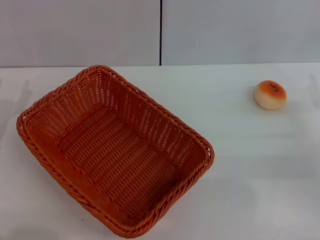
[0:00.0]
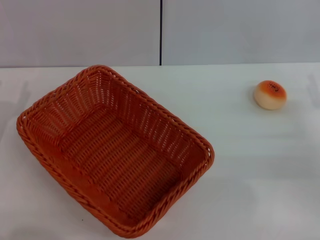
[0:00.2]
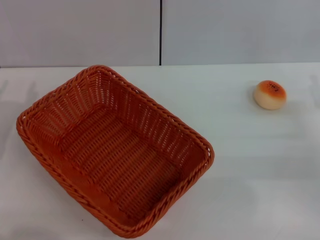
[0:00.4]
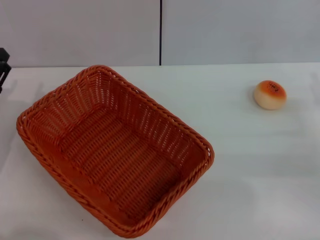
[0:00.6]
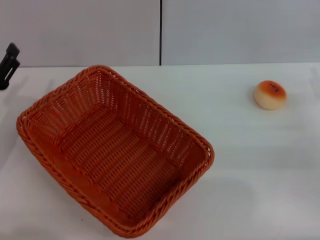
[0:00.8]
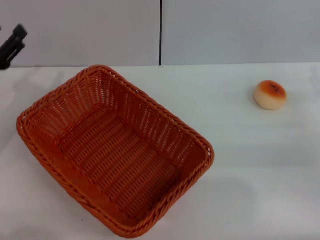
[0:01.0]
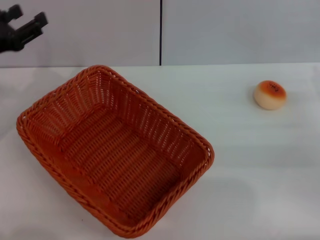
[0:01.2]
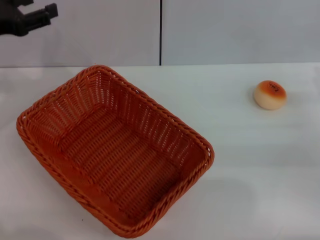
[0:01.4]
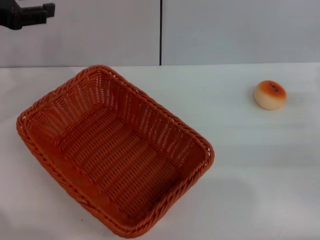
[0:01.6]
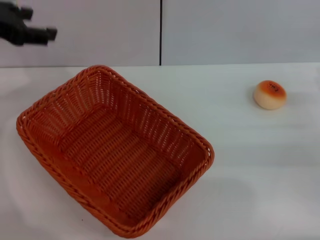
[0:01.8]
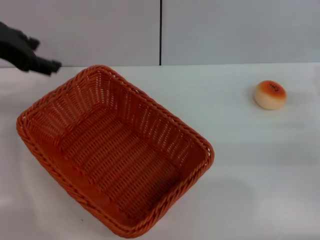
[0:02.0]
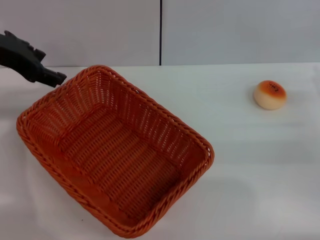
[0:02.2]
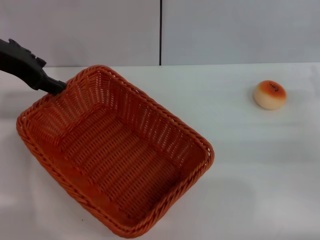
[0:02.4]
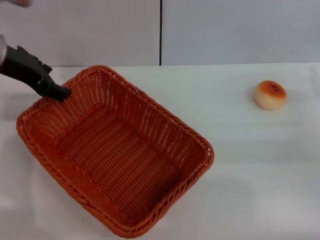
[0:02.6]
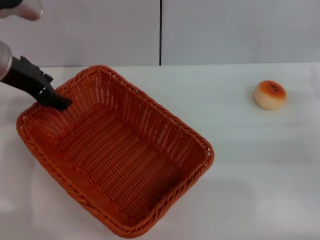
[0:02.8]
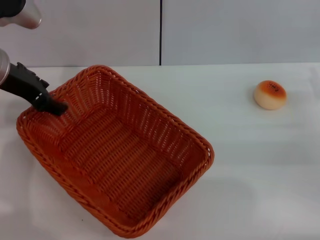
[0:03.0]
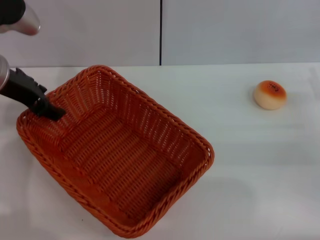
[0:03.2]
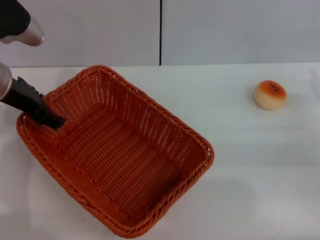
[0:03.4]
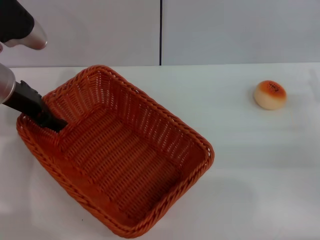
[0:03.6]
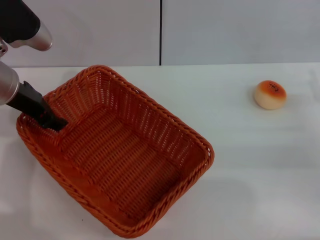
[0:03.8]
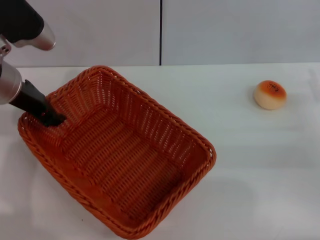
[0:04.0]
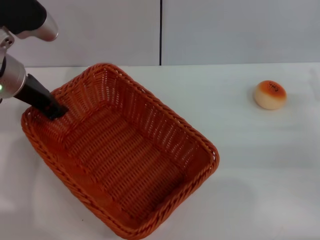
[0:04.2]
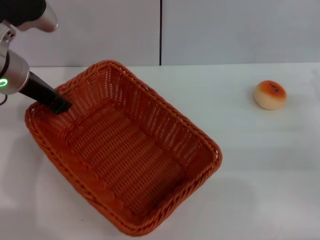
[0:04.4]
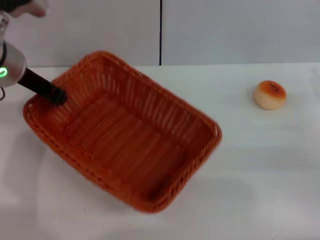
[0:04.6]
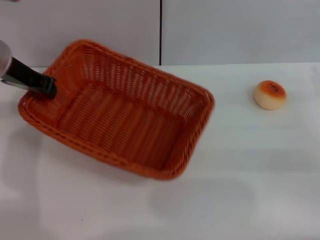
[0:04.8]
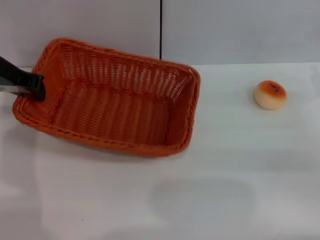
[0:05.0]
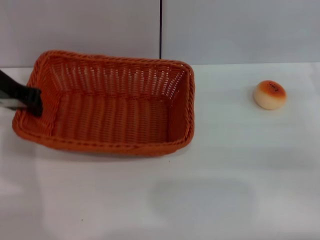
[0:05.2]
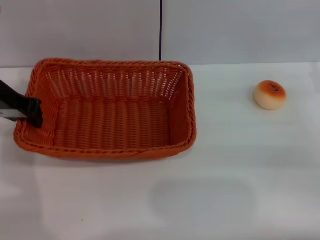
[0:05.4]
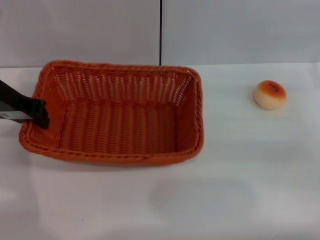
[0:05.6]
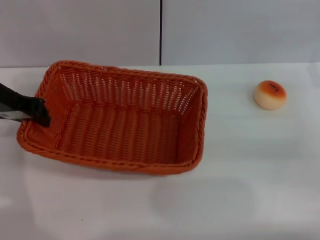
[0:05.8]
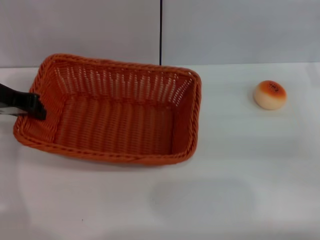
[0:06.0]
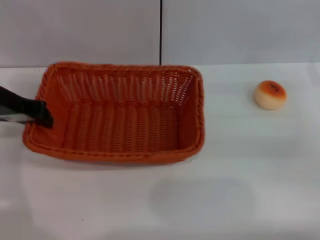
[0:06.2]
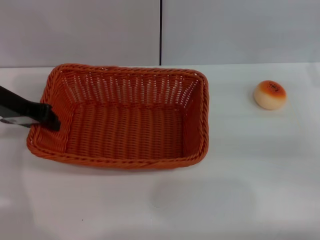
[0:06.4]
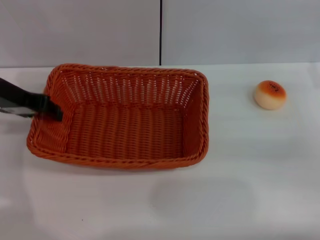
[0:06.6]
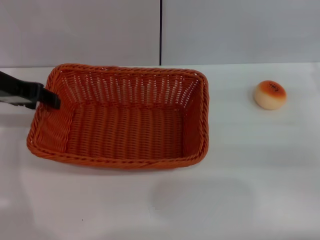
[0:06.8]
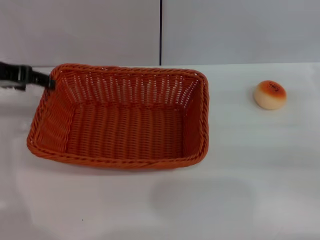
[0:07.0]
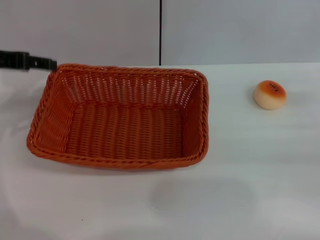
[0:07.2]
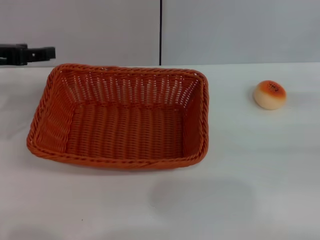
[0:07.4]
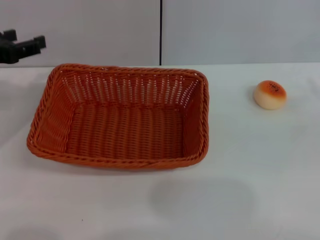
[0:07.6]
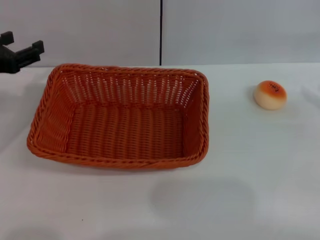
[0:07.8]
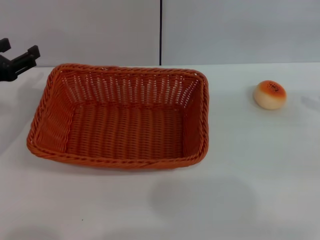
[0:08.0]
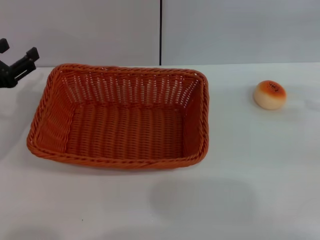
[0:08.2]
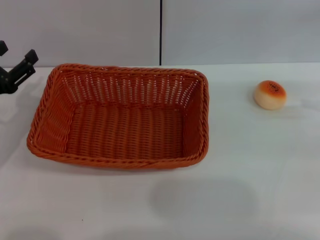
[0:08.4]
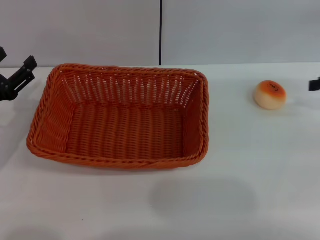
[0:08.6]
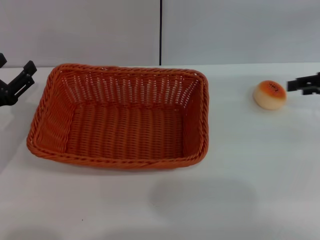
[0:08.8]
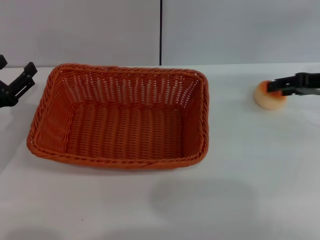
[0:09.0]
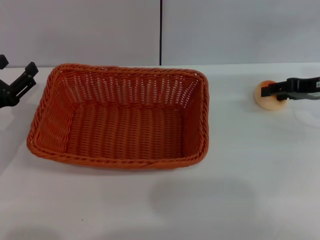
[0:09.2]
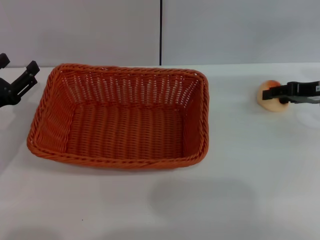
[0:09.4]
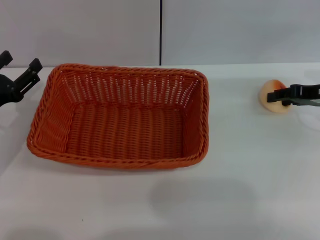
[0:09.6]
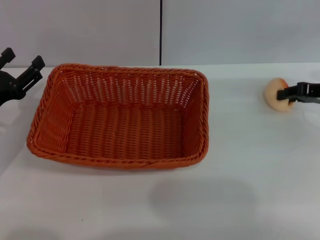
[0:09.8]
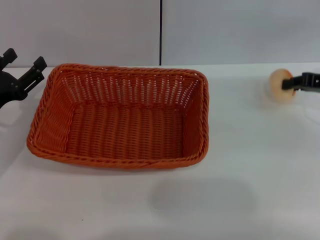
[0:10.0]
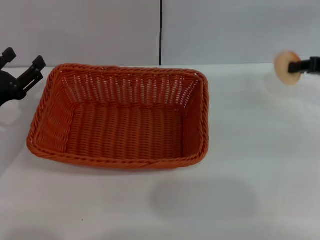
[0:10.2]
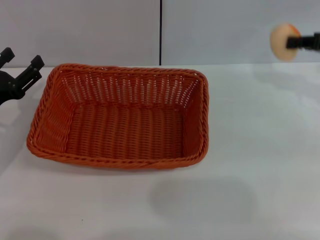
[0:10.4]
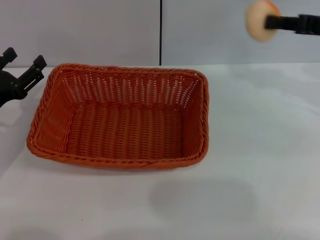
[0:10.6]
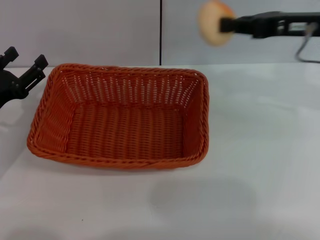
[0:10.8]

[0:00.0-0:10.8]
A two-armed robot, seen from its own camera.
Step, 0:00.0 to 0:08.6: Move the basket to the center of view with the left gripper.
Step, 0:08.8 to 0:10.2: Pick up the egg yolk pastry with the right gripper.
0:00.0 to 0:01.6: The left gripper shifts approximately 20 cm upward and forward.
0:01.6 to 0:03.0: The left gripper moves to the right, roughly 5 cm.
0:03.0 to 0:04.6: The left gripper closes up.
0:04.6 to 0:06.2: The left gripper changes place by some 5 cm.
0:06.2 to 0:07.8: The right gripper travels upward and to the right by roughly 10 cm. Meanwhile the left gripper changes place by approximately 5 cm, and opens its fingers.
0:07.8 to 0:09.2: The right gripper shifts roughly 10 cm to the left and forward. The left gripper moves downward, approximately 10 cm.
0:09.2 to 0:10.8: The right gripper goes some 10 cm upward and to the left, and closes up.

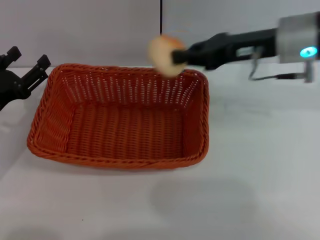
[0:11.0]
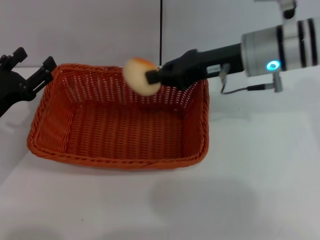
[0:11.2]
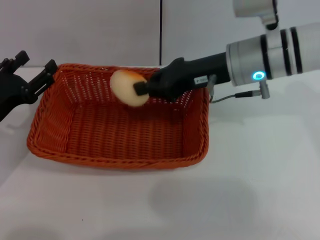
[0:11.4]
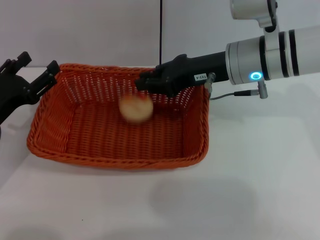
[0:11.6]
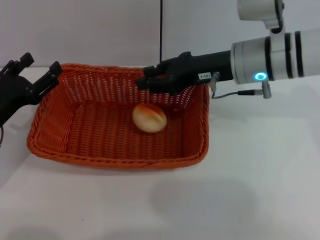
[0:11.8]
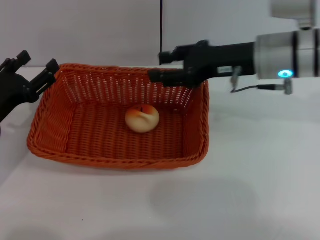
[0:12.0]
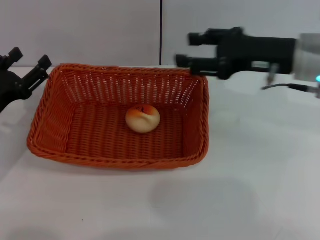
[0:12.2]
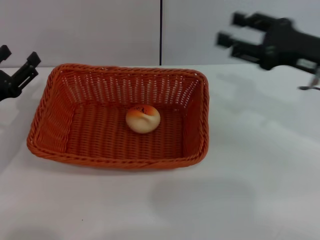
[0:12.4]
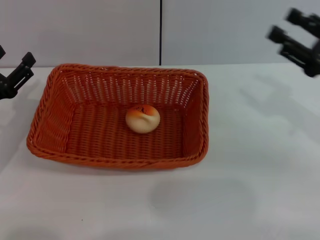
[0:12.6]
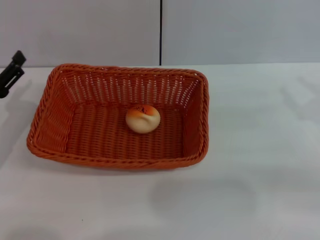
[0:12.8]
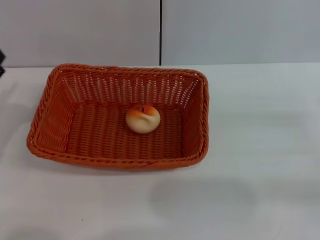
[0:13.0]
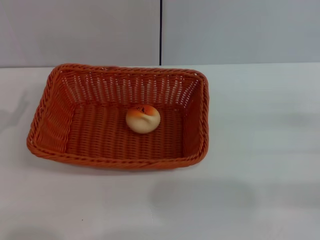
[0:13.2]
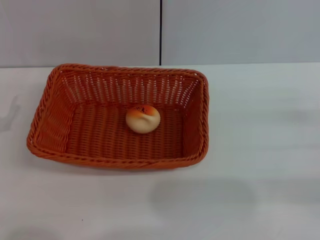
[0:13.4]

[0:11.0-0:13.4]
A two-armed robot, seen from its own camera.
Step, 0:11.0 to 0:12.2: Place the egg yolk pastry into the basket with the right gripper.
0:11.0 to 0:12.2: The right gripper changes place by about 5 cm, and opens.
0:12.2 to 0:13.4: The left gripper moves backward, about 5 cm; the right gripper moves to the right, downward and backward, roughly 20 cm.
